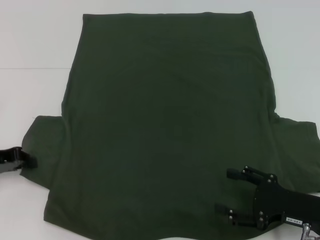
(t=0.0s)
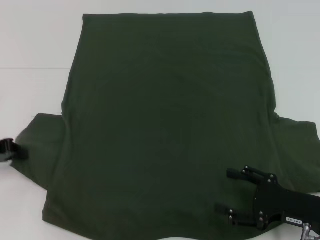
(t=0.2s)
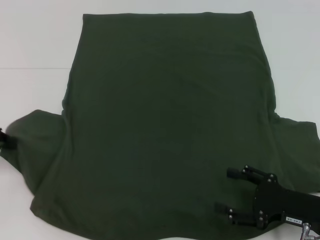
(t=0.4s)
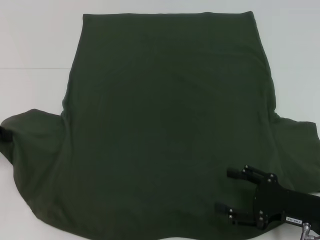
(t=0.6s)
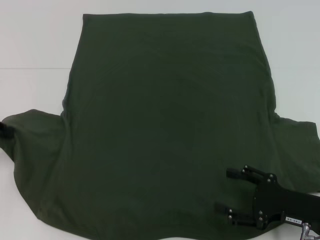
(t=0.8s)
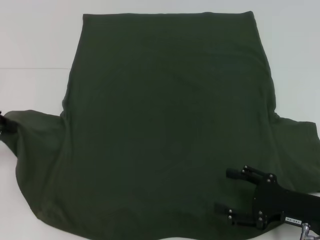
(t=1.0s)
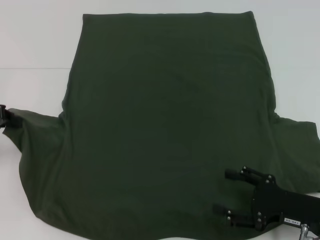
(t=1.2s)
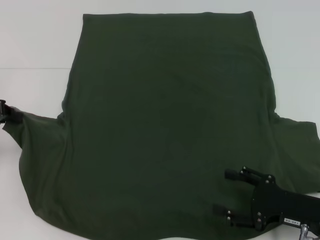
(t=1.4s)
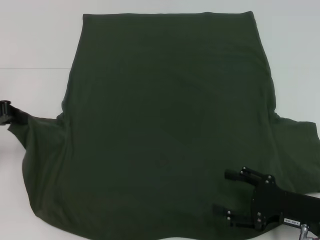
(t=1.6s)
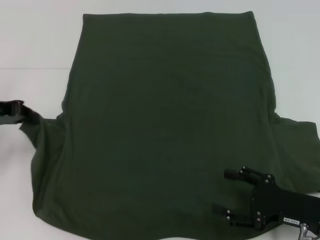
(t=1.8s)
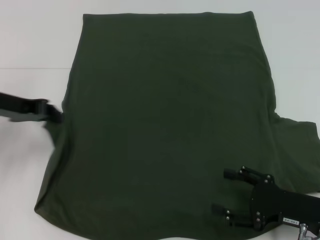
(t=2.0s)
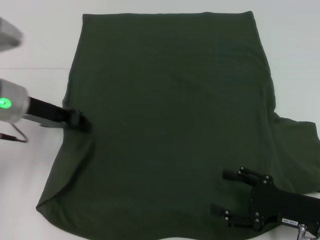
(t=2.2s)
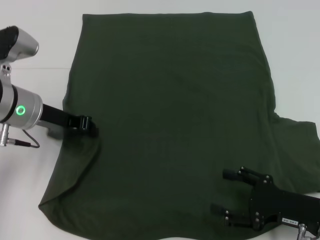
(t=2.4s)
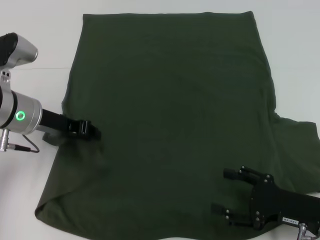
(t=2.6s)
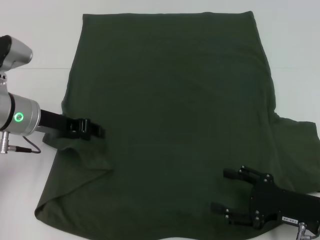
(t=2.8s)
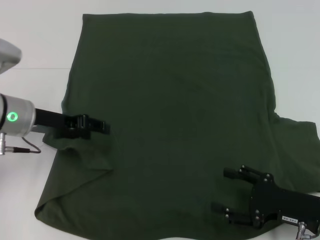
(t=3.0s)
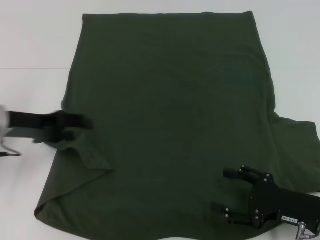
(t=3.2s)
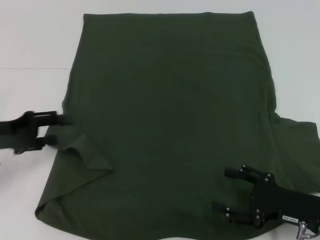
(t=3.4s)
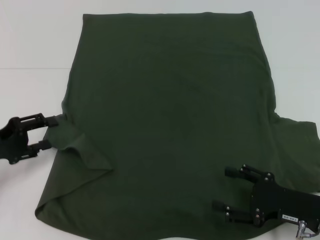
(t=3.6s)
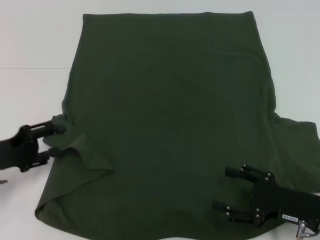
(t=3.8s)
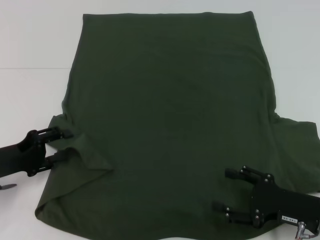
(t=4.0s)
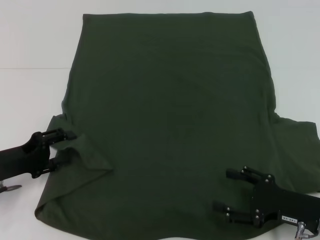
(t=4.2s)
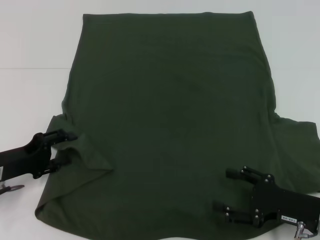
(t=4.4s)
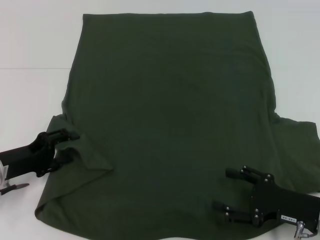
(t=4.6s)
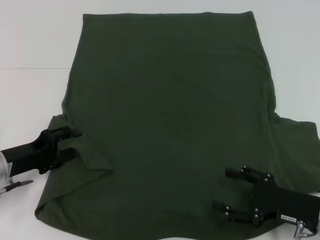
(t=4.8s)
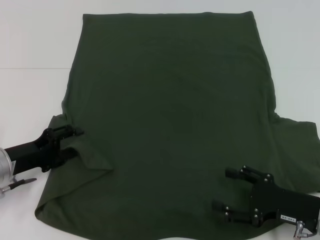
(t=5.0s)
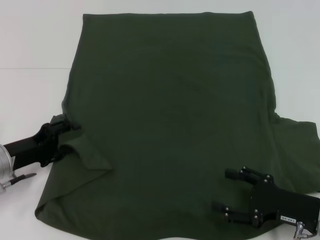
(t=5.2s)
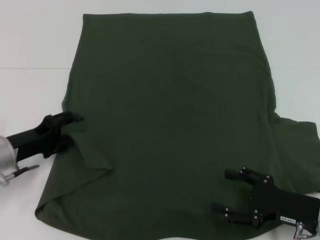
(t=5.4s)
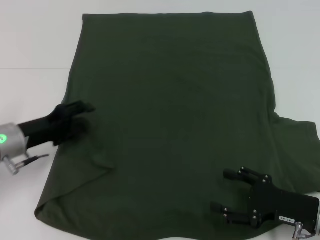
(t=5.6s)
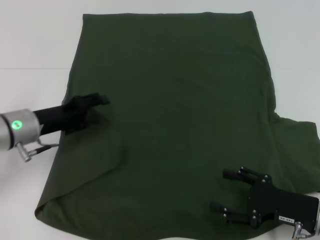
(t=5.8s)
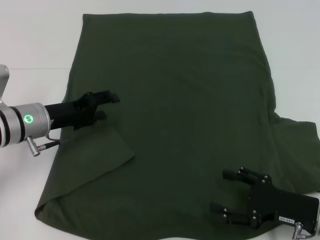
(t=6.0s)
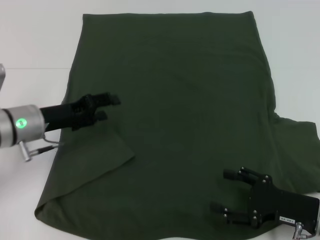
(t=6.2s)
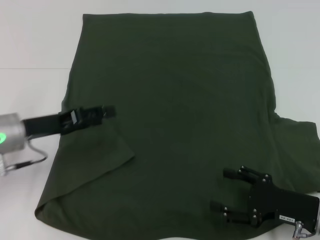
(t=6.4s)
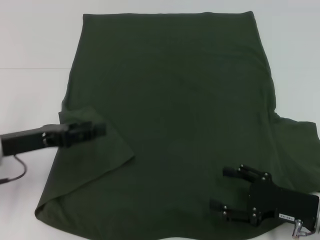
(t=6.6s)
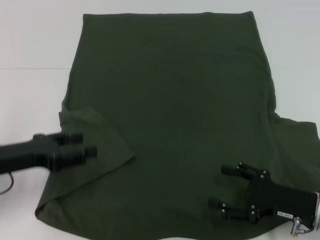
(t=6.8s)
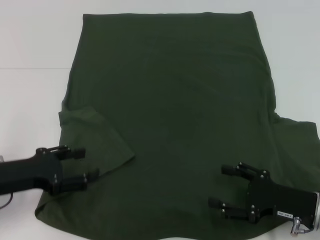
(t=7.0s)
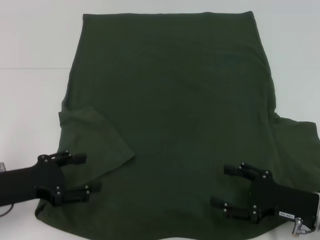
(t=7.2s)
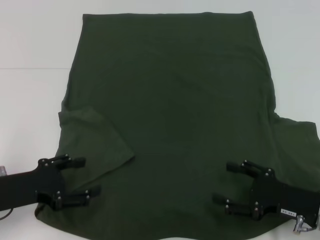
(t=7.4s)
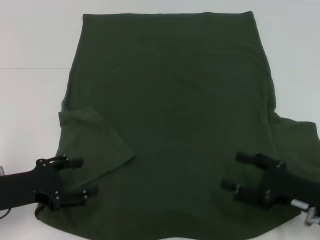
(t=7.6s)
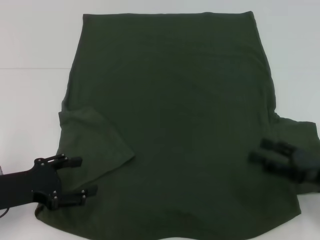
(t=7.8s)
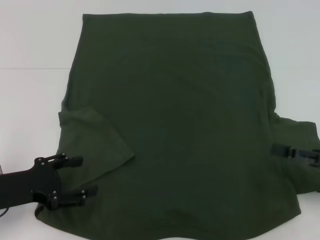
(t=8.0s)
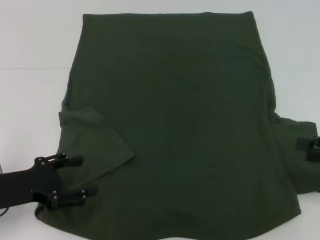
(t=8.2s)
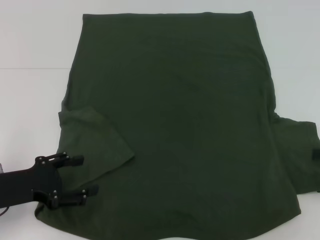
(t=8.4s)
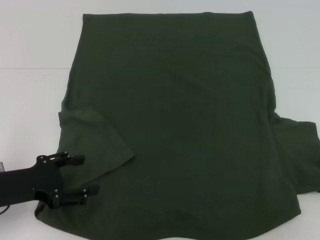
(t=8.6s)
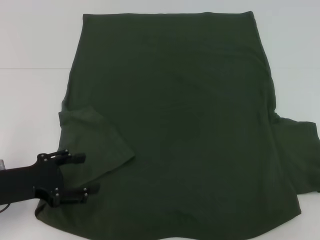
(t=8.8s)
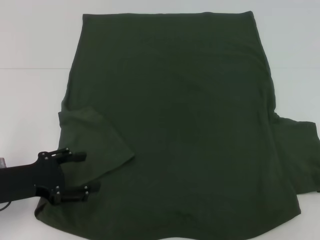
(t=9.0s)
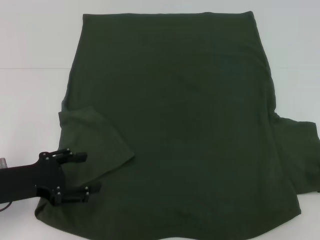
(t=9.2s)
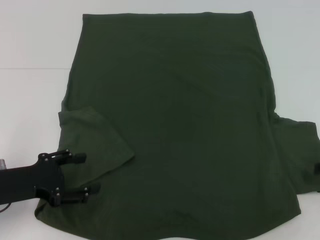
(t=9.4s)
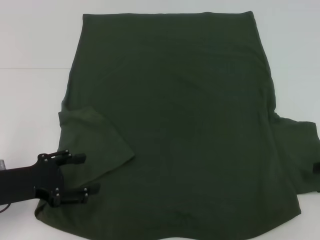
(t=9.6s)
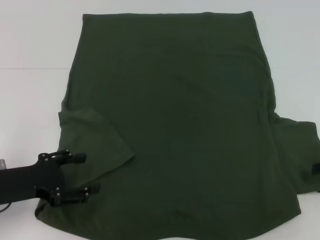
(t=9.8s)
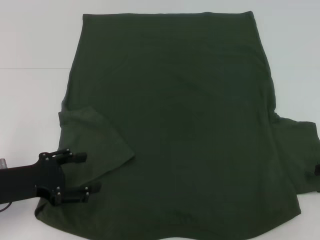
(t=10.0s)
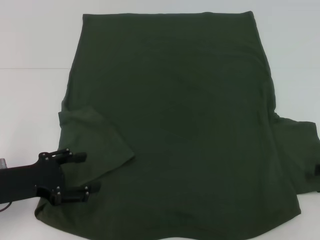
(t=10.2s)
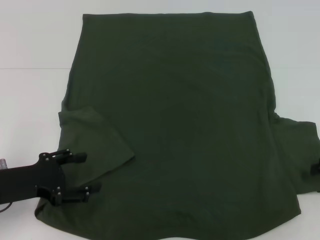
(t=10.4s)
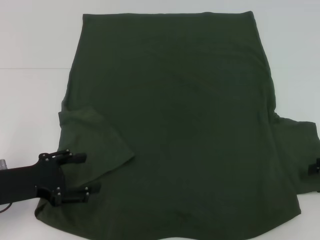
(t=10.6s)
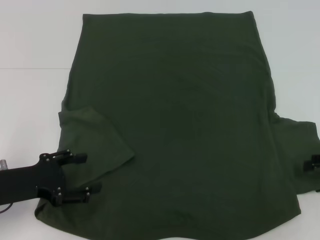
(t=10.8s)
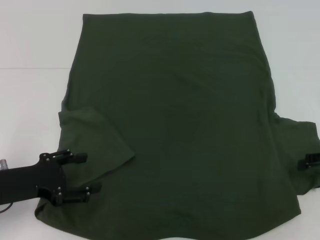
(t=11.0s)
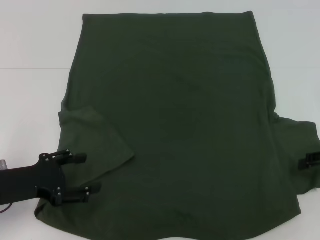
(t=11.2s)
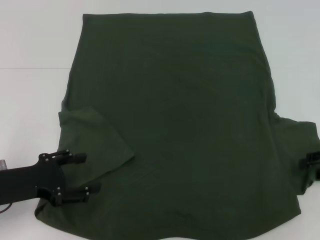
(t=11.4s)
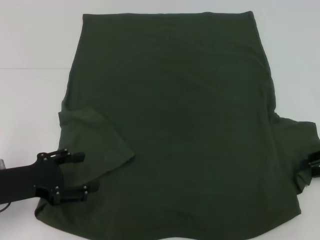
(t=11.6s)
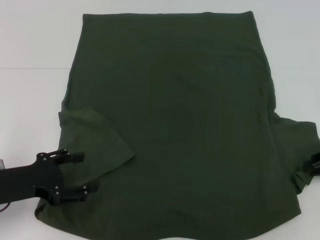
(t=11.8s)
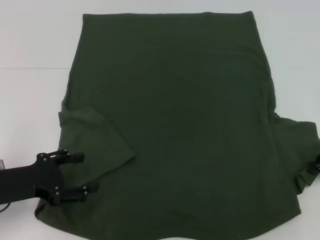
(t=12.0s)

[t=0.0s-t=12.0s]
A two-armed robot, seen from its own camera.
Step, t=0.0s to t=6.4s: Fold the bottom left sleeve with your left hand.
t=0.0s to t=1.6s: The left gripper shifts roughly 10 cm upward.
t=1.6s to t=3.0s: The left gripper shifts some 10 cm to the right, and opens.
t=3.0s to t=4.4s: The left gripper is displaced downward, backward and to the left by roughly 10 cm.
t=4.4s to t=6.0s: The left gripper heads forward and to the right, covering about 10 cm.
t=6.0s to t=7.6s: The left gripper is displaced backward and to the left by about 15 cm.
t=7.6s to t=9.0s: The right gripper heads to the right and upward, covering some 15 cm.

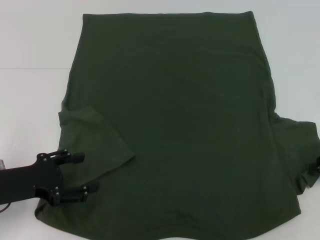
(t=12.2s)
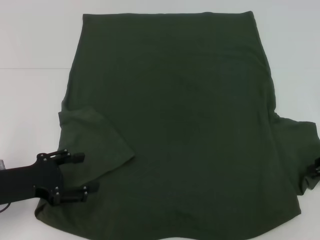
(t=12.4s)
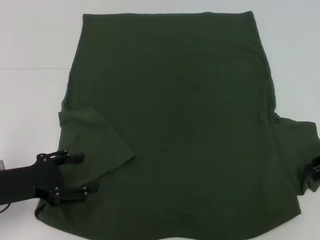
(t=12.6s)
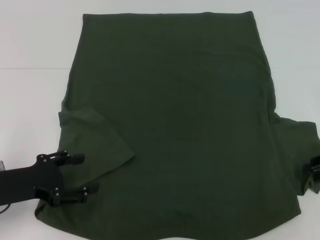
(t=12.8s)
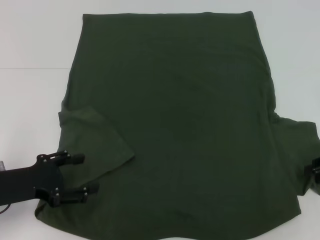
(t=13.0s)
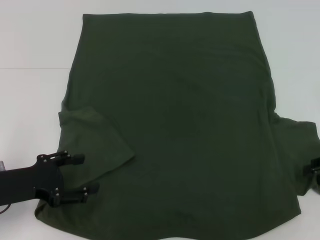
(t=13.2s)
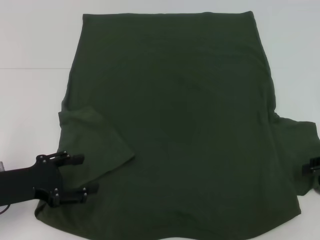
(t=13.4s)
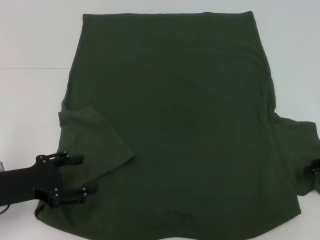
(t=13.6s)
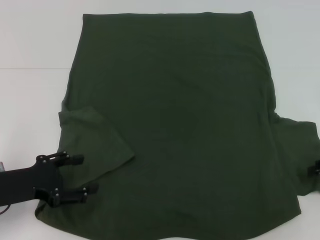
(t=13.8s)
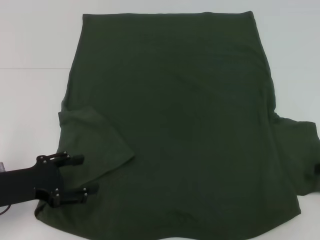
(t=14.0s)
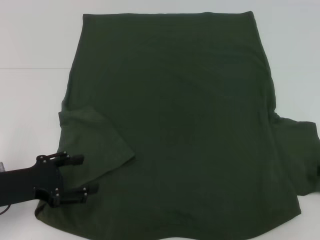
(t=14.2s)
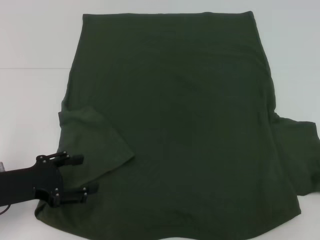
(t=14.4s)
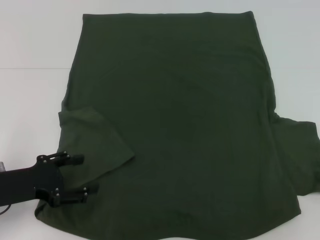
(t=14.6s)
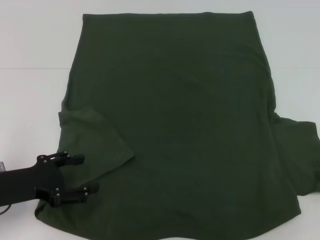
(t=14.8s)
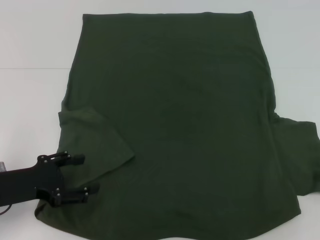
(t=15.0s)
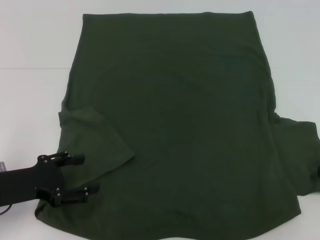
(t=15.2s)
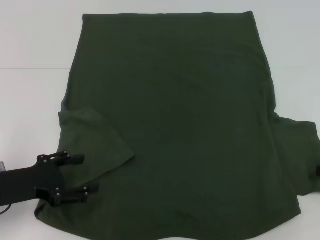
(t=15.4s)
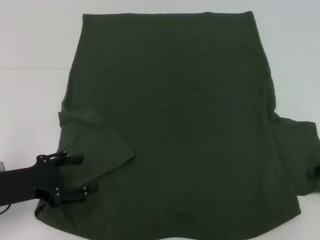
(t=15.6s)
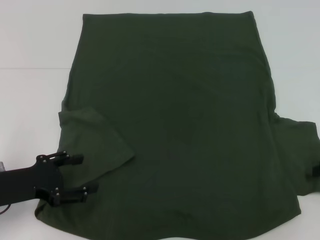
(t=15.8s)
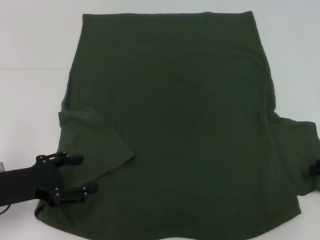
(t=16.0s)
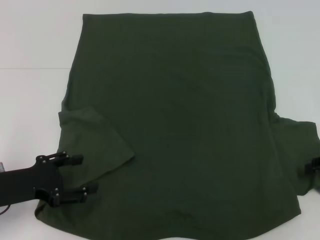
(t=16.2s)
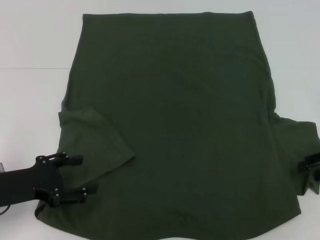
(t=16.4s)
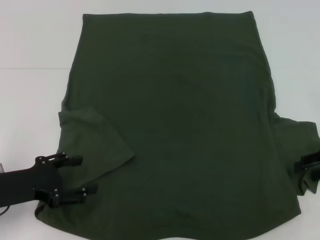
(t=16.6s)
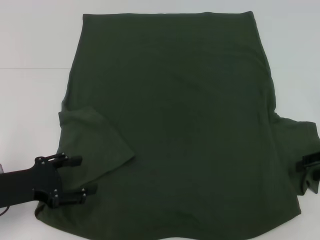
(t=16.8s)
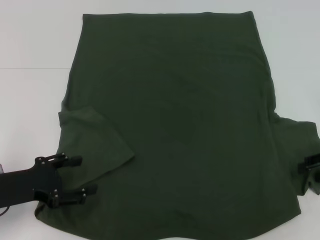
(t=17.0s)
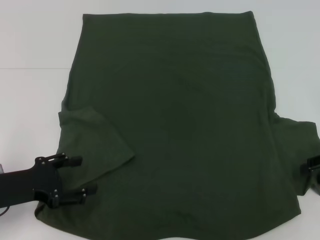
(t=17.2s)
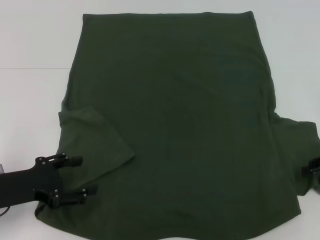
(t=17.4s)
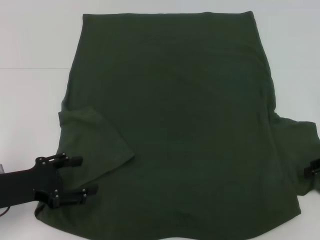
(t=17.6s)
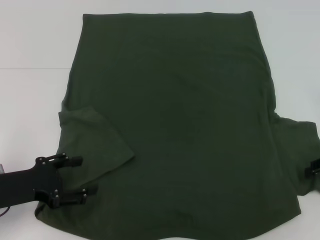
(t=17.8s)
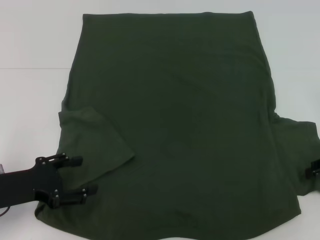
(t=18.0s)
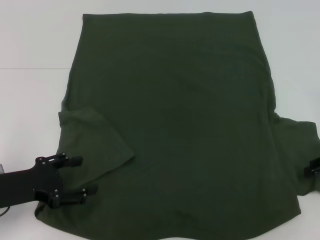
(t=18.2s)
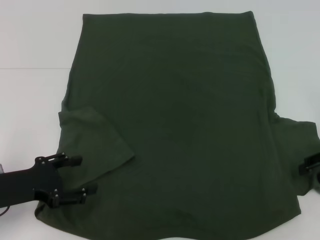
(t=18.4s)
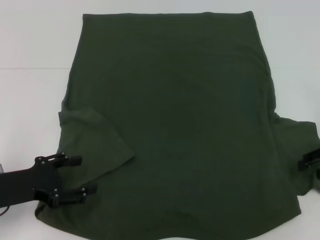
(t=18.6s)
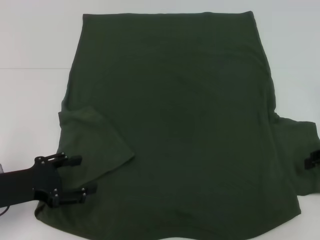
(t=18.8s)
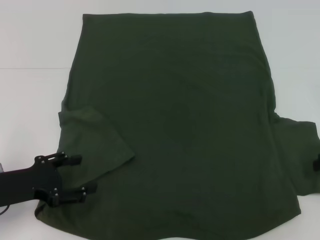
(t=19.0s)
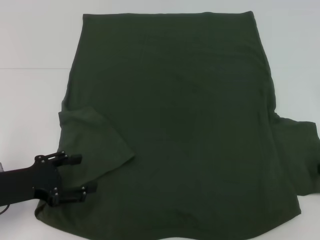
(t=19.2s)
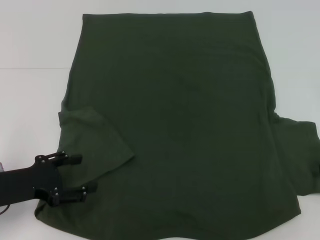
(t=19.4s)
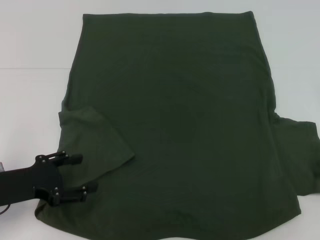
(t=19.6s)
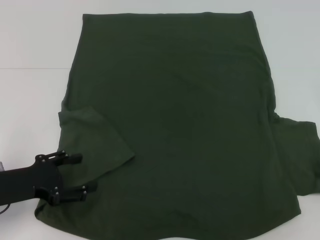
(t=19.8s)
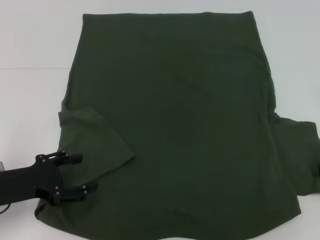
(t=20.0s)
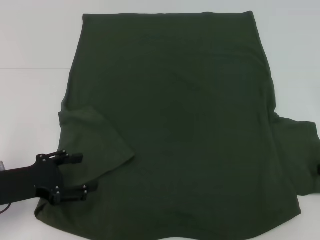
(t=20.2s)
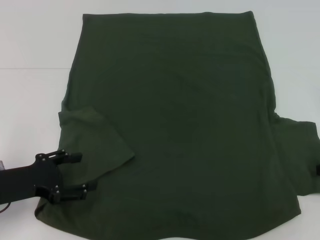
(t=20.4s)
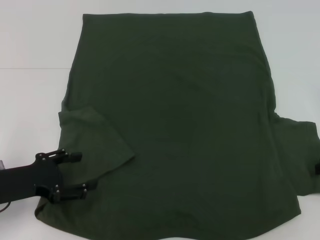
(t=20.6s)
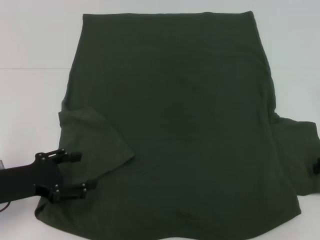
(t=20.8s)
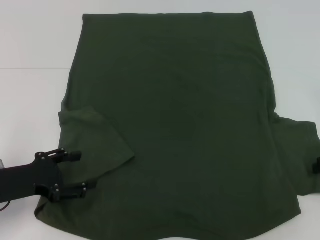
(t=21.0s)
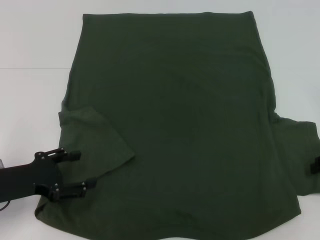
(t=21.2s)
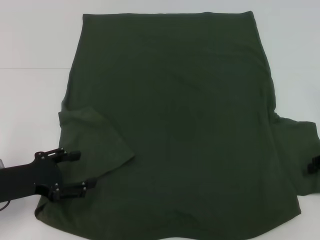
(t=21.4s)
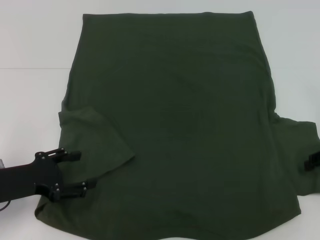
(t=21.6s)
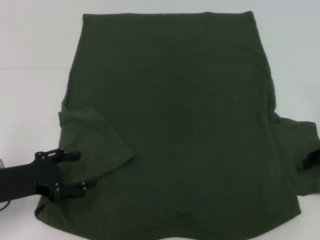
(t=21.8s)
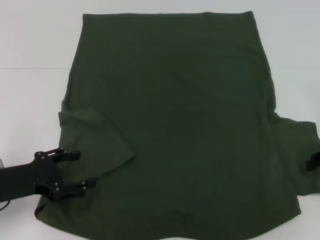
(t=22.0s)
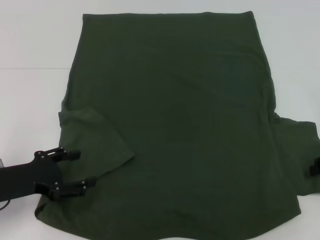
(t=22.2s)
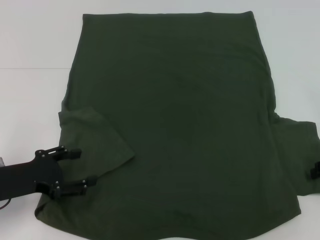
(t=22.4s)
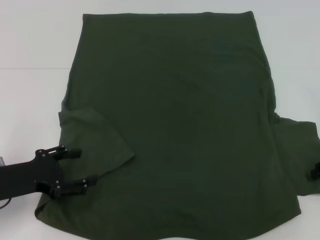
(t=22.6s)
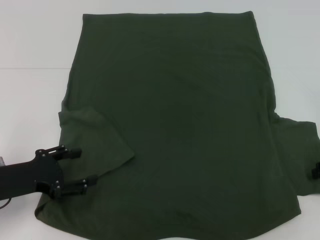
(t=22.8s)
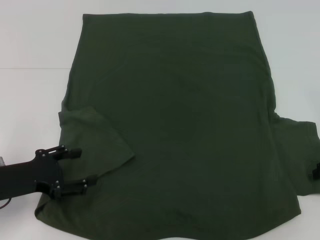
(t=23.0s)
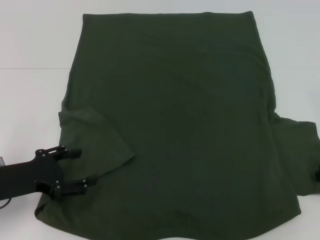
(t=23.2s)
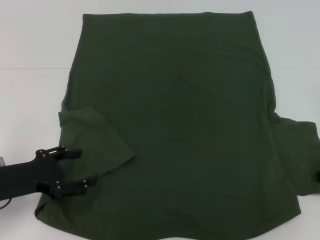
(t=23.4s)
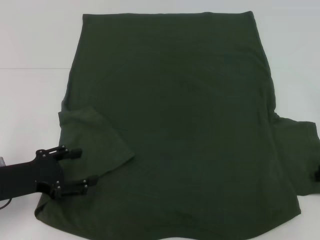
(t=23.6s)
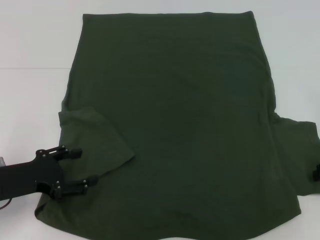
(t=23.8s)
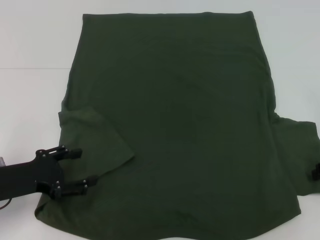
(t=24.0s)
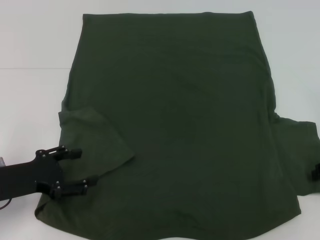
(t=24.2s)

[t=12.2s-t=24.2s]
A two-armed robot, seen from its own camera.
t=15.2s to t=16.6s: The grippers stay close to where they were, moving slightly.
t=18.2s to t=21.2s: The grippers make only small movements.
t=21.2s to t=22.6s: The two grippers keep their place.
t=22.6s to t=24.2s: The two grippers keep their place.
